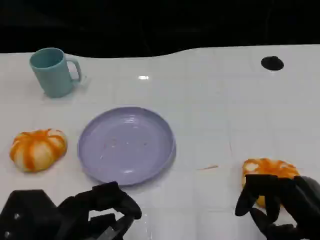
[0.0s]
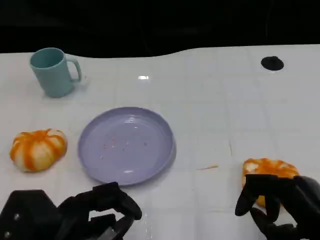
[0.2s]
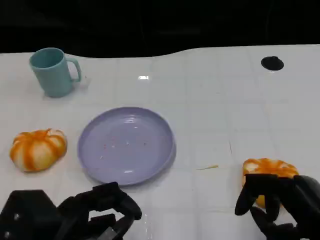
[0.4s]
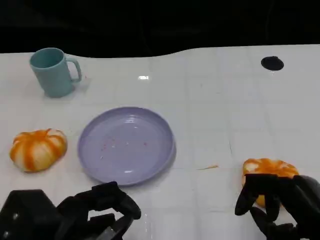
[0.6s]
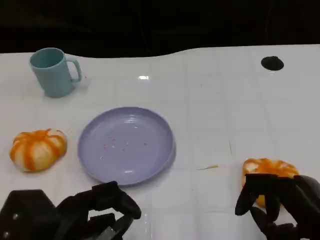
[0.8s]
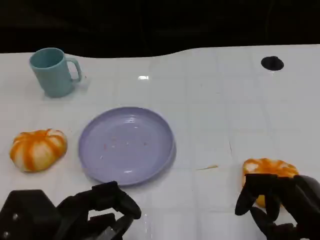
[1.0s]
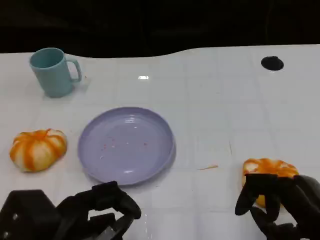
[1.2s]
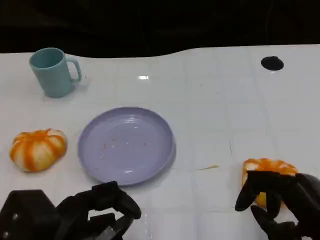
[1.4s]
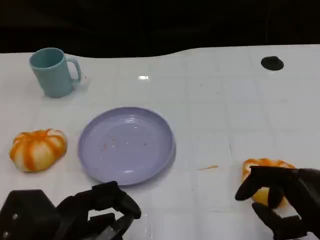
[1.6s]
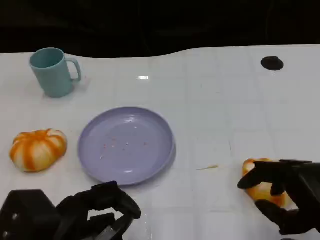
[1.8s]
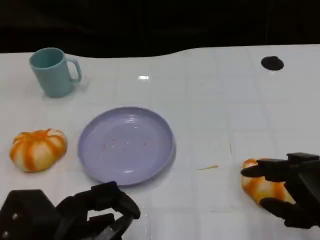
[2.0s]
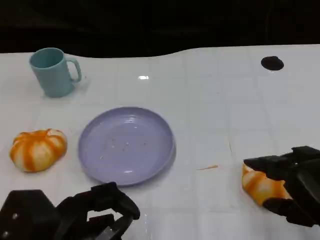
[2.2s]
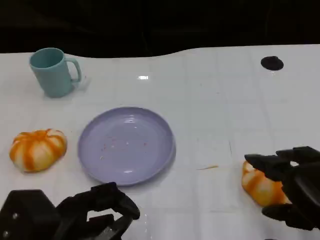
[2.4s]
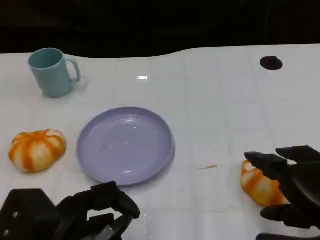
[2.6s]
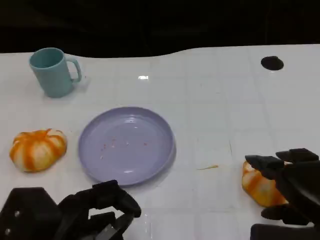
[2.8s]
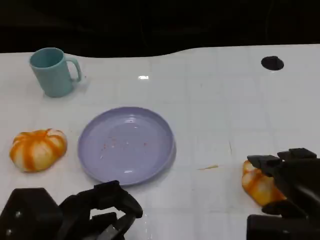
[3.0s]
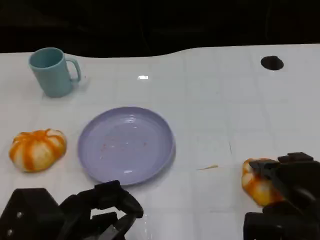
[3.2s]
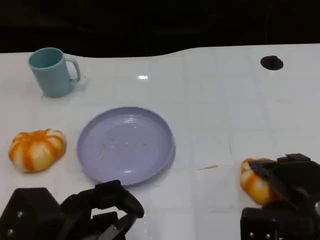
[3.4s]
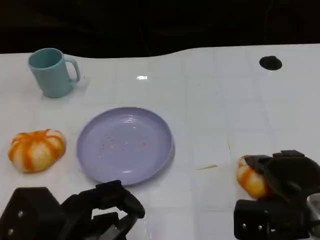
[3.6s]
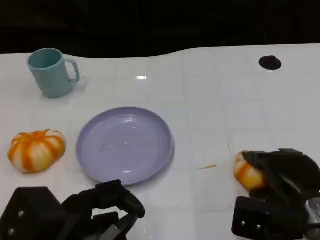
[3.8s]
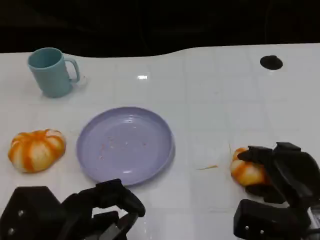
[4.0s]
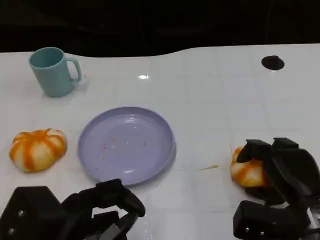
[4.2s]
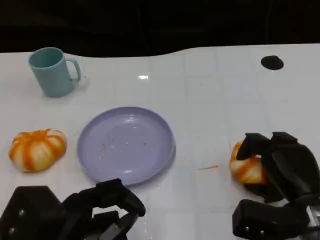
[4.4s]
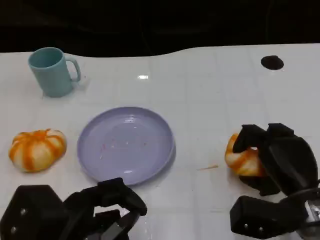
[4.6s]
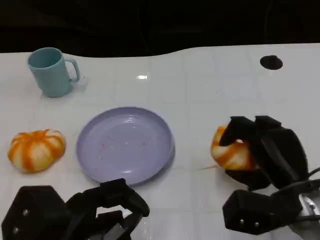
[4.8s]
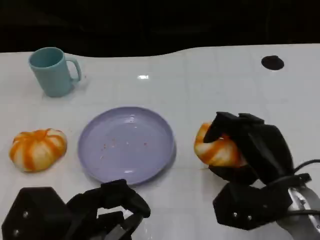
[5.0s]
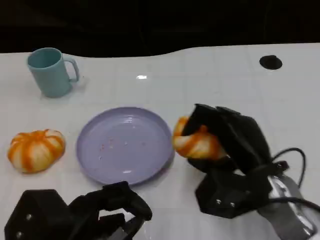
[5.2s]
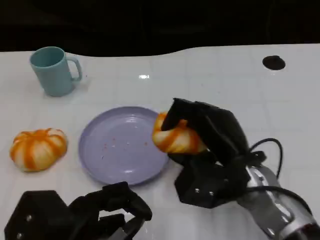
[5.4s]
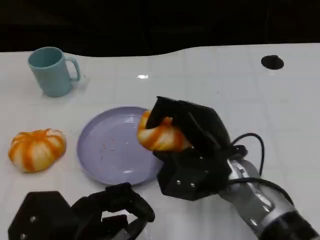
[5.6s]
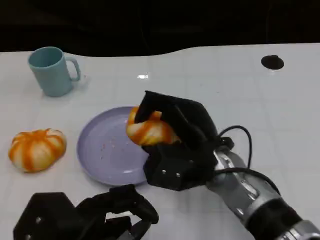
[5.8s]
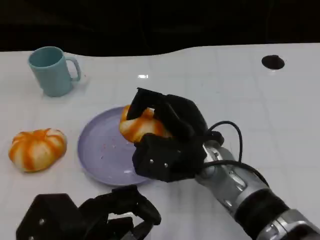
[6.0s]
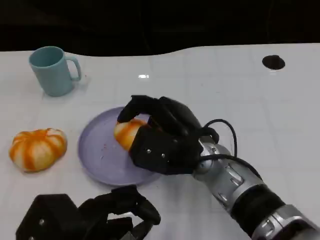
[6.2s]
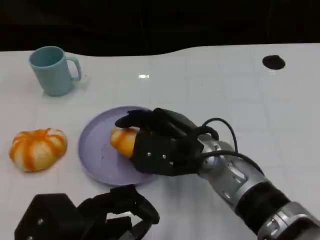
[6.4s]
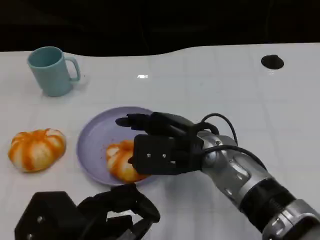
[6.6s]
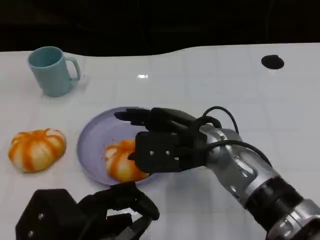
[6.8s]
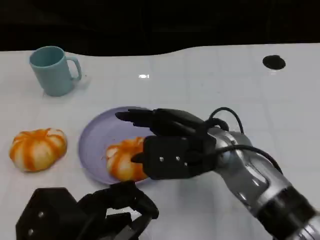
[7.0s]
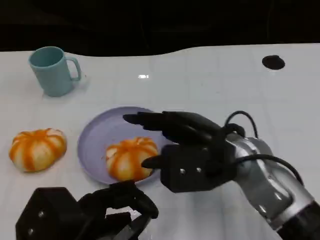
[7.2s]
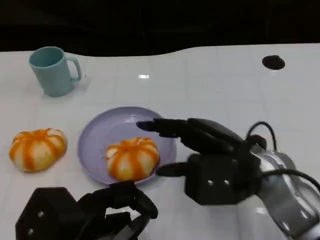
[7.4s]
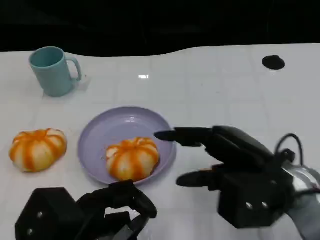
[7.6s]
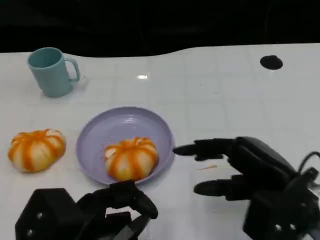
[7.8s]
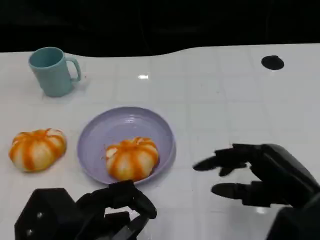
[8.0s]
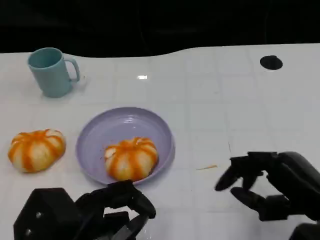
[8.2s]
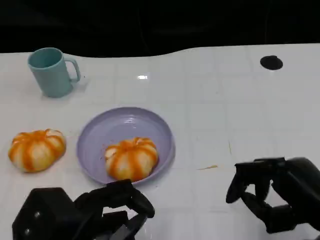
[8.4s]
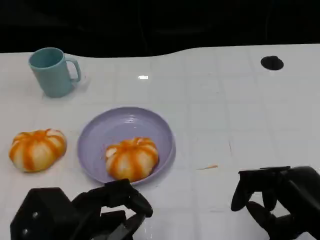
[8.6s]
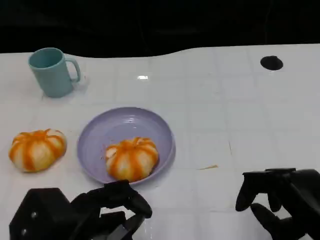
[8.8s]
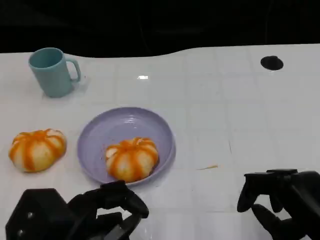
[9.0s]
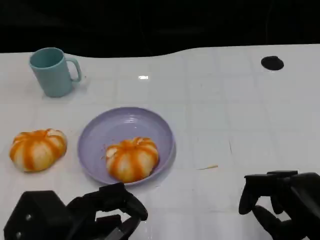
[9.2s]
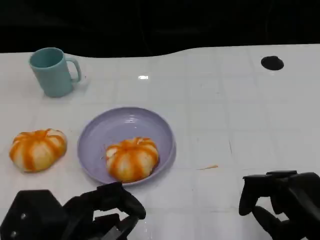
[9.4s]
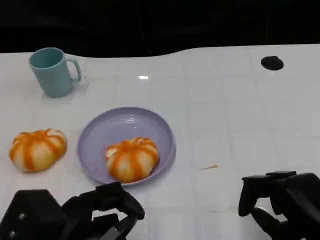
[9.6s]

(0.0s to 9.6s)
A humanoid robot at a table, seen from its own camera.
Task of the whole recording: Grasp the bread from the table and place it into the plate.
0.0s - 1.6s: The hands make only small movements.
3.2s - 4.8s: The right hand moves about 5 cm.
4.8s - 6.4s: The right hand is displaced to the left by roughly 15 cm.
6.4s - 8.0s: The right hand heads to the right and backward, covering about 20 cm.

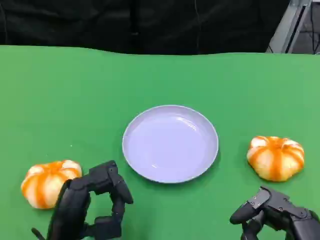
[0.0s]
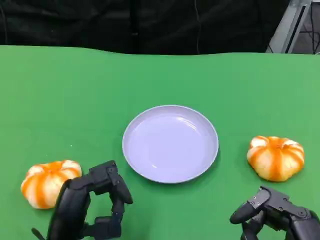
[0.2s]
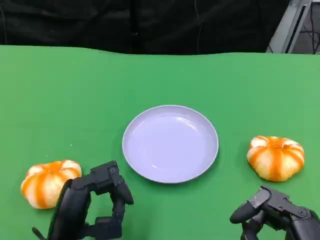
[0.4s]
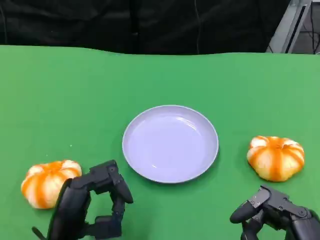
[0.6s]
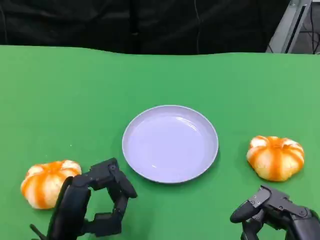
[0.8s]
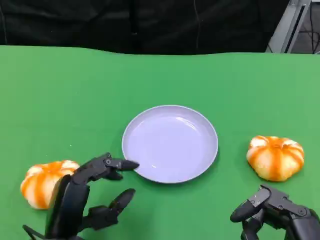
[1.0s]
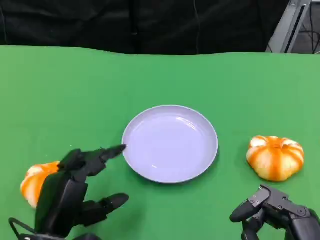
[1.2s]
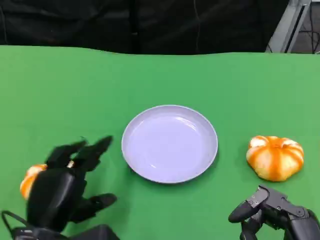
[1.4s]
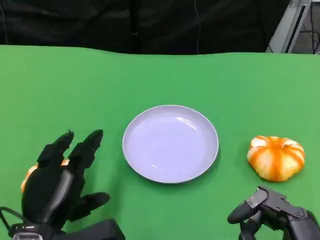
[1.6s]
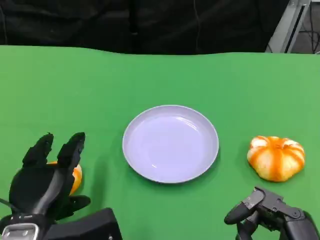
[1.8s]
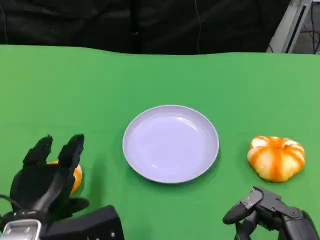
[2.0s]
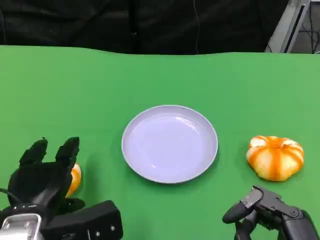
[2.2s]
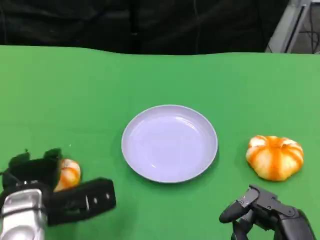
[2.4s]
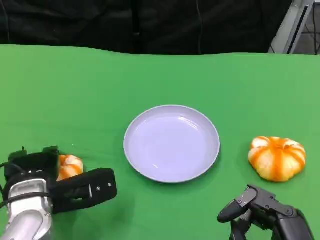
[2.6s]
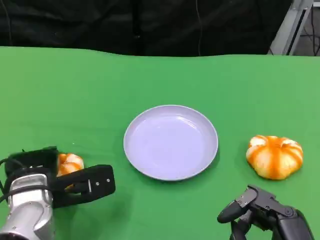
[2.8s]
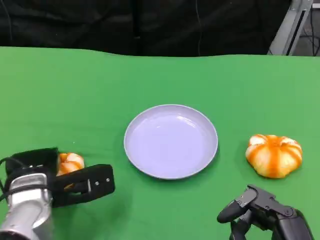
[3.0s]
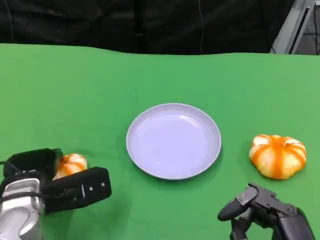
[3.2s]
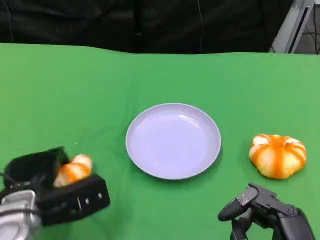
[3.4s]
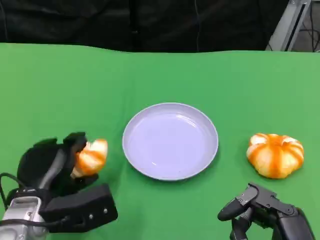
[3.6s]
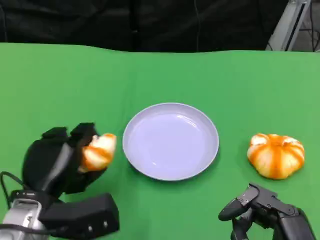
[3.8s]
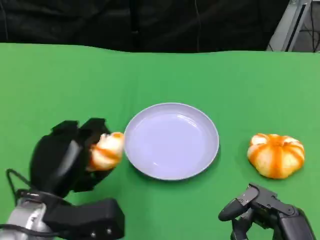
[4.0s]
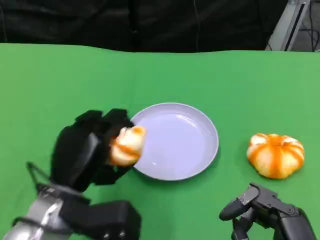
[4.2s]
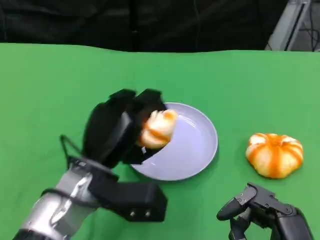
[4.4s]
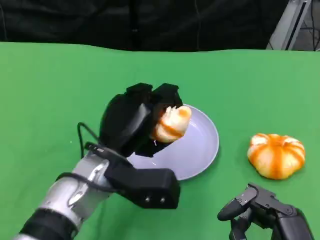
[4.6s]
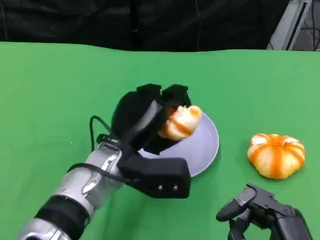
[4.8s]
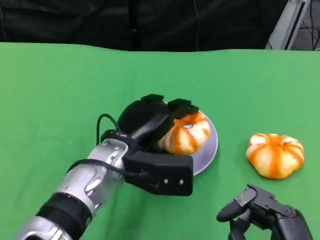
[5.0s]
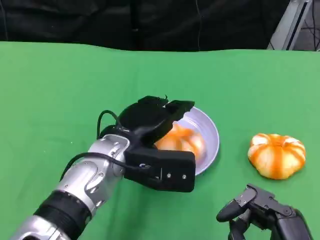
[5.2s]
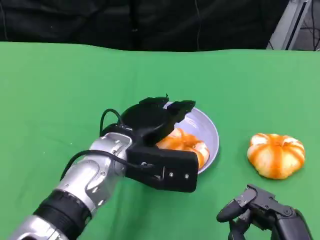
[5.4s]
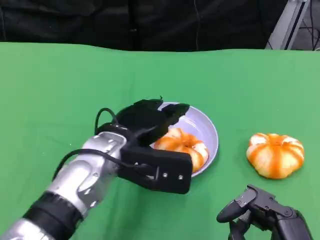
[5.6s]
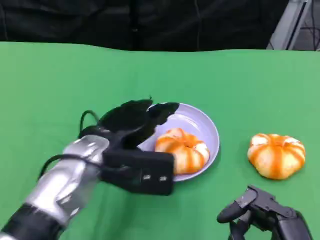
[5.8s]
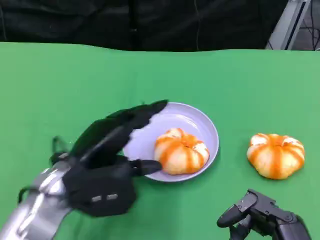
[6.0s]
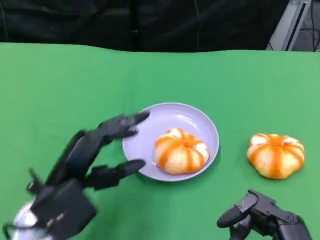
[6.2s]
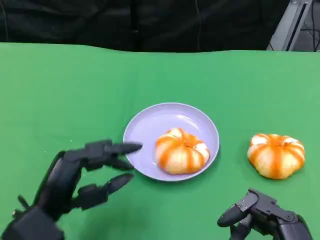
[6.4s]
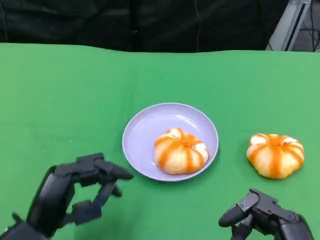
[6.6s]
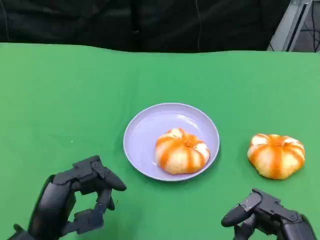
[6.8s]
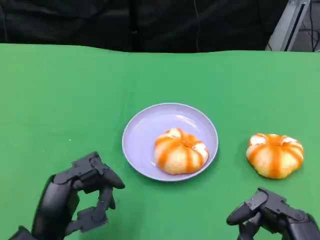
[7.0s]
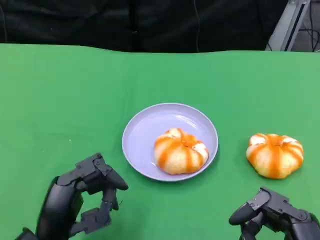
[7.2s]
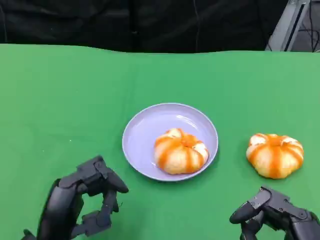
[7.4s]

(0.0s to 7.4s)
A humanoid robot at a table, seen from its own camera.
Task of the whole recording: Grasp the bread from the table and place it into the plate.
1.4s - 3.0s: The left hand heads forward, covering about 10 cm.
3.0s - 4.4s: The left hand is displaced to the right by some 10 cm.
6.0s - 7.4s: The left hand heads backward and downward, covering some 10 cm.

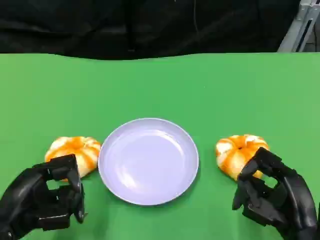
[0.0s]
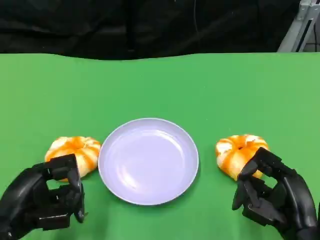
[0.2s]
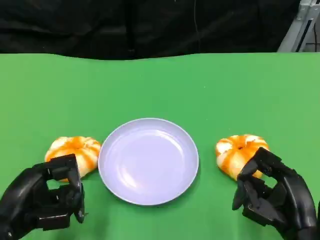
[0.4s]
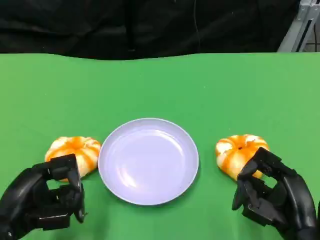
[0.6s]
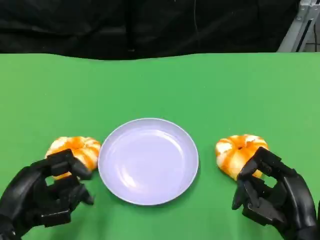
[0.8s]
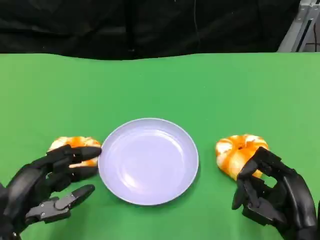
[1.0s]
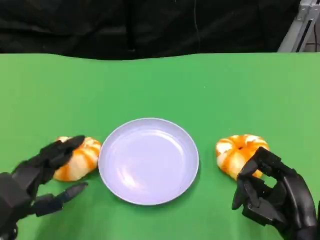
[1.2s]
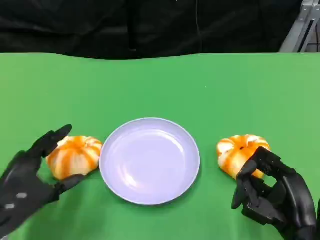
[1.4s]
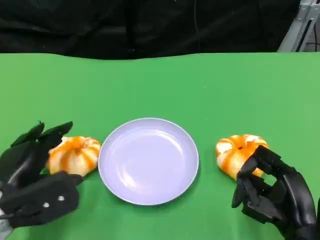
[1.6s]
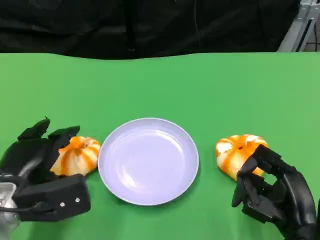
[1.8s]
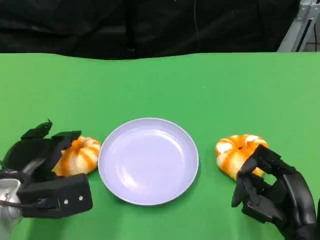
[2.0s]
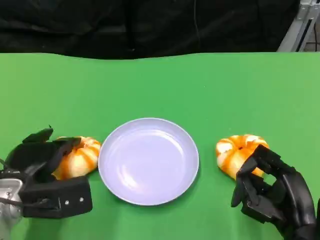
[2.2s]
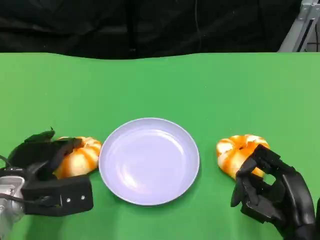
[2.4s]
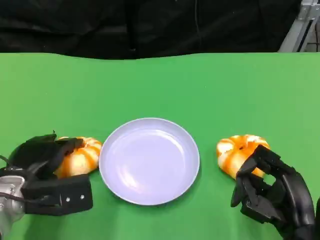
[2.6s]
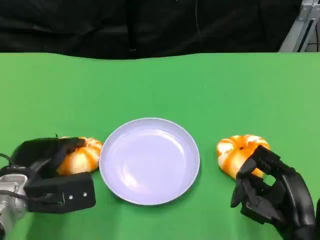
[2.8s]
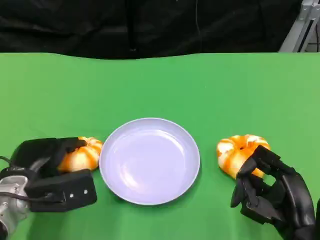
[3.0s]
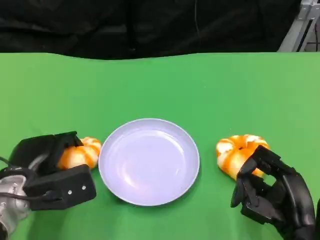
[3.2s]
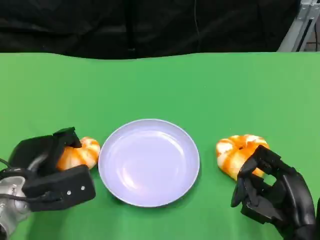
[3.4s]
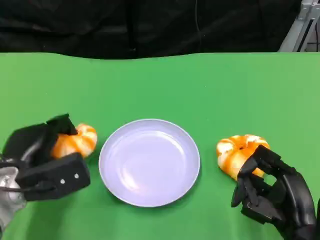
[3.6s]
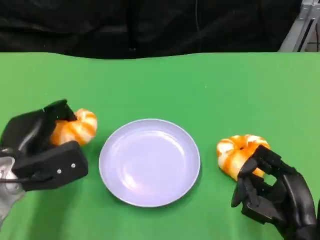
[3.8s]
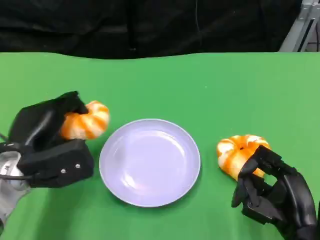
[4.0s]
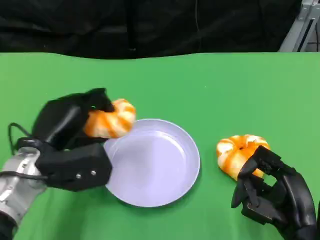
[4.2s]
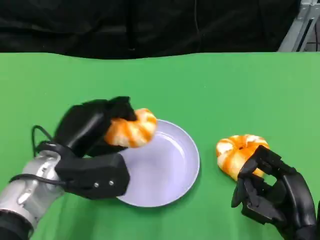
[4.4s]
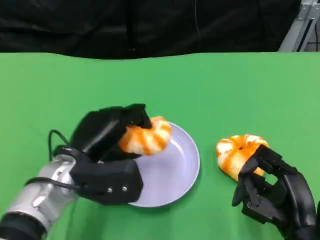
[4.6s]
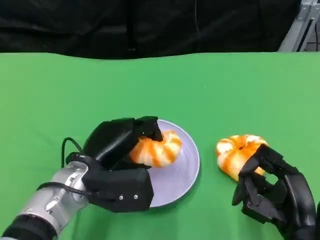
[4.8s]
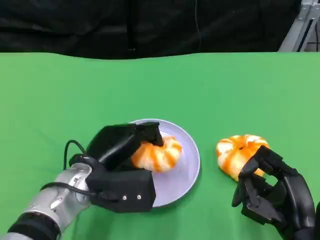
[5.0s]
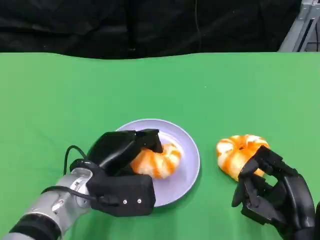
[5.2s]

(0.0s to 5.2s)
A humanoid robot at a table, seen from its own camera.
Task of the whole recording: Grasp the bread from the table and place it into the plate.
0.0s - 1.8s: The left hand travels forward by roughly 5 cm.
1.8s - 3.4s: The hands stay close to where they were, moving slightly.
3.4s - 5.2s: The left hand moves to the right, approximately 10 cm.
